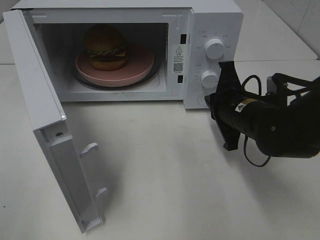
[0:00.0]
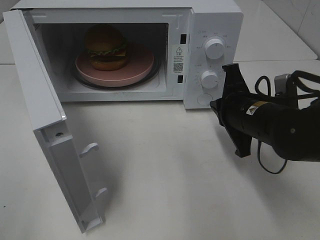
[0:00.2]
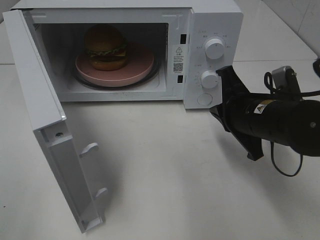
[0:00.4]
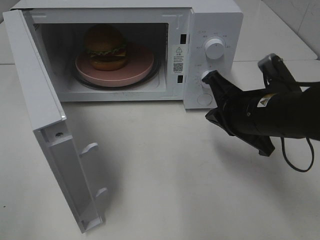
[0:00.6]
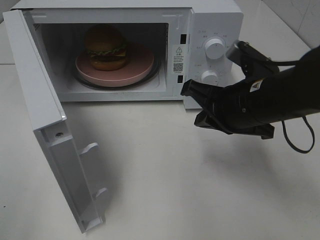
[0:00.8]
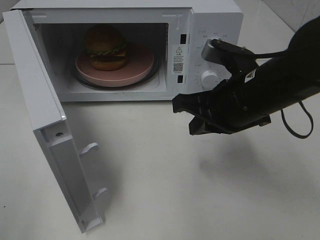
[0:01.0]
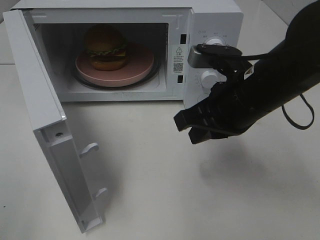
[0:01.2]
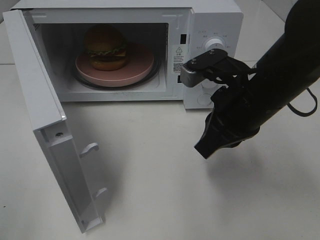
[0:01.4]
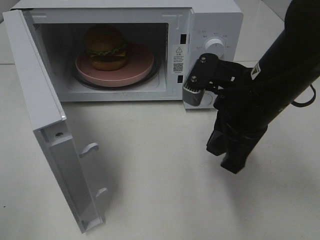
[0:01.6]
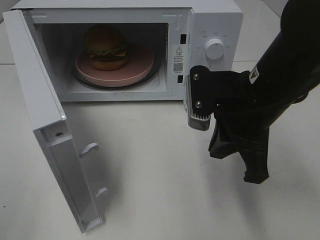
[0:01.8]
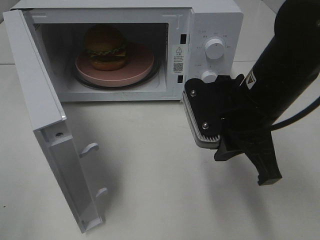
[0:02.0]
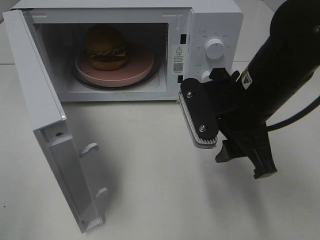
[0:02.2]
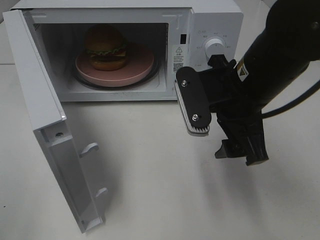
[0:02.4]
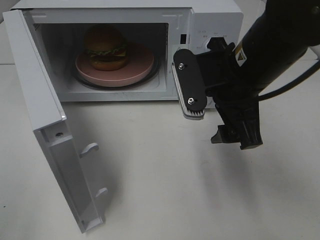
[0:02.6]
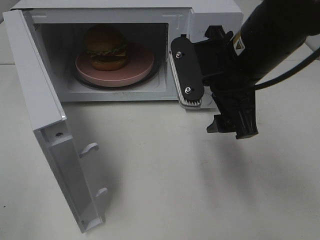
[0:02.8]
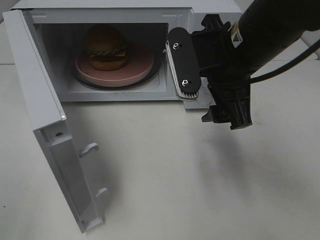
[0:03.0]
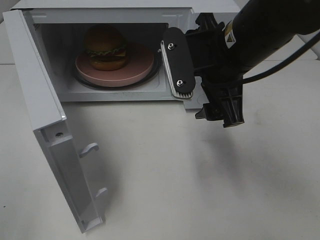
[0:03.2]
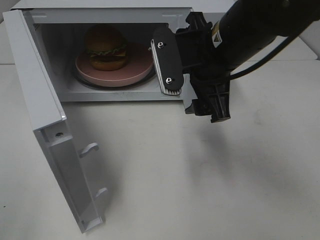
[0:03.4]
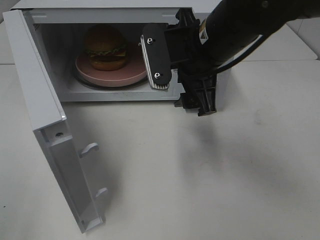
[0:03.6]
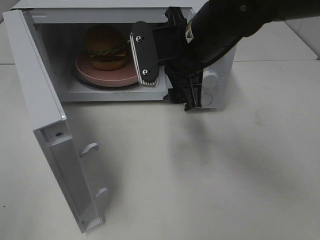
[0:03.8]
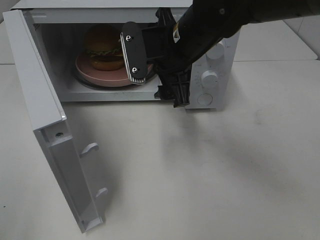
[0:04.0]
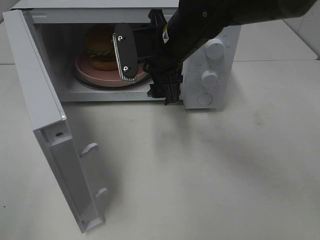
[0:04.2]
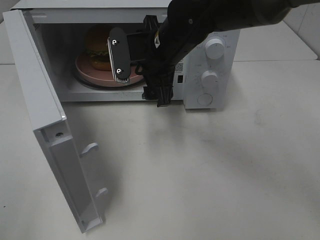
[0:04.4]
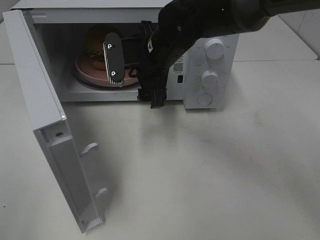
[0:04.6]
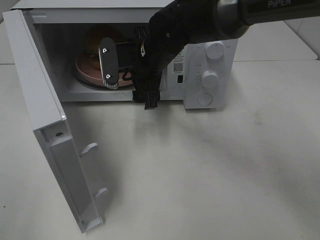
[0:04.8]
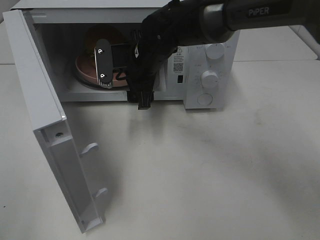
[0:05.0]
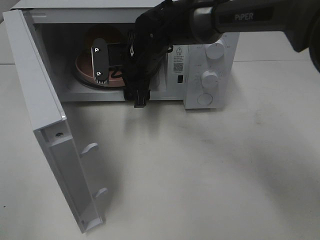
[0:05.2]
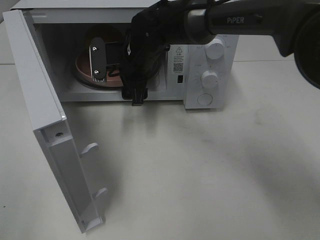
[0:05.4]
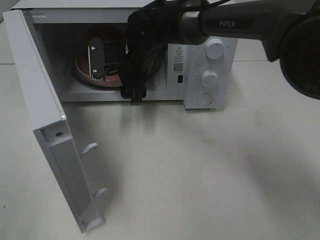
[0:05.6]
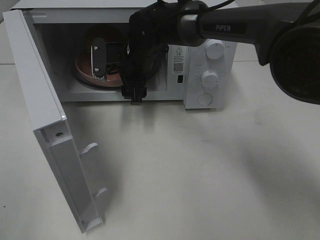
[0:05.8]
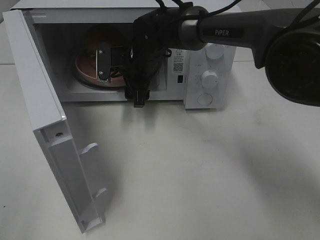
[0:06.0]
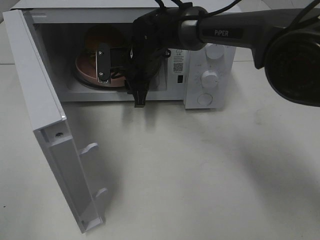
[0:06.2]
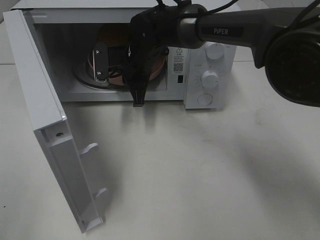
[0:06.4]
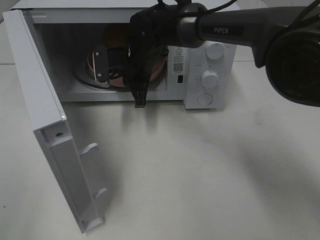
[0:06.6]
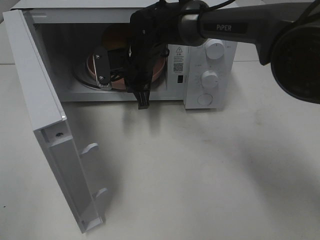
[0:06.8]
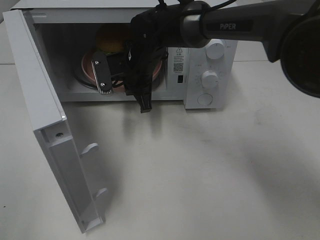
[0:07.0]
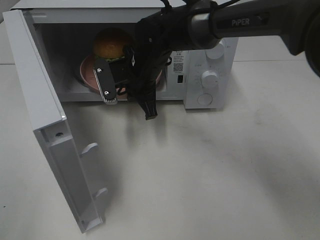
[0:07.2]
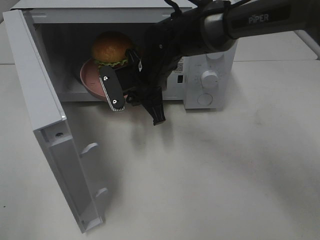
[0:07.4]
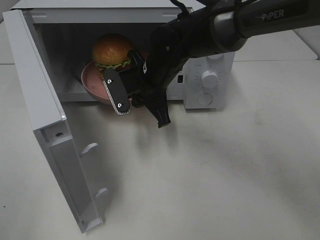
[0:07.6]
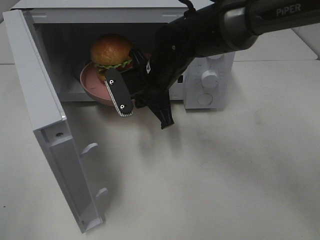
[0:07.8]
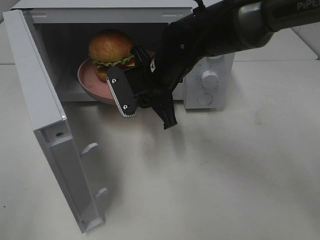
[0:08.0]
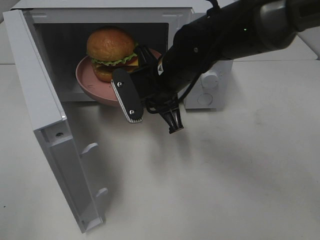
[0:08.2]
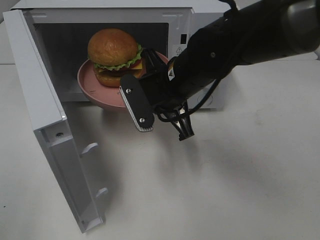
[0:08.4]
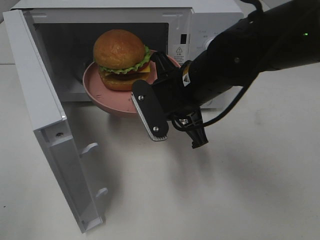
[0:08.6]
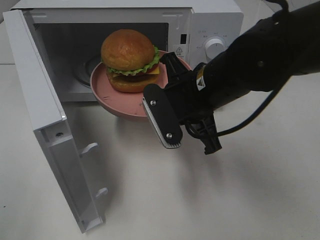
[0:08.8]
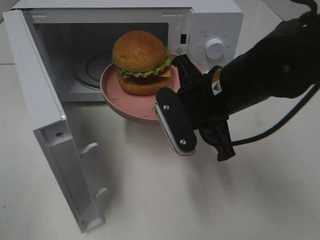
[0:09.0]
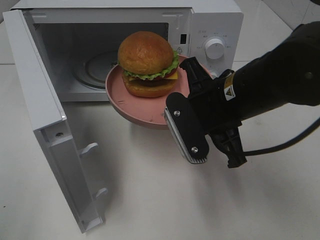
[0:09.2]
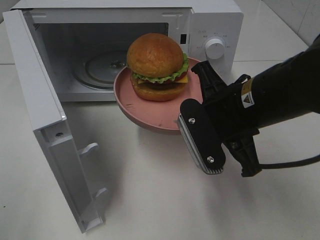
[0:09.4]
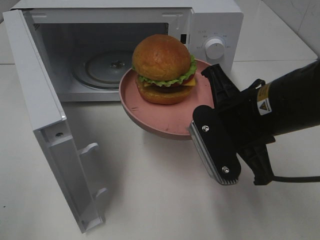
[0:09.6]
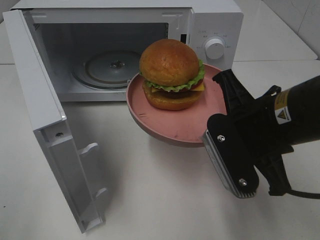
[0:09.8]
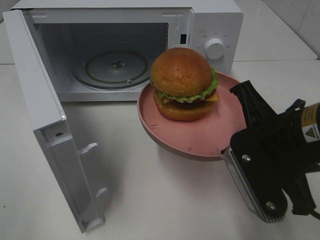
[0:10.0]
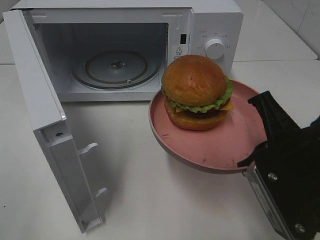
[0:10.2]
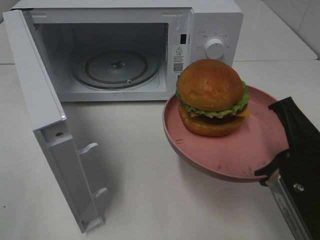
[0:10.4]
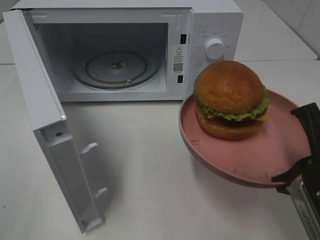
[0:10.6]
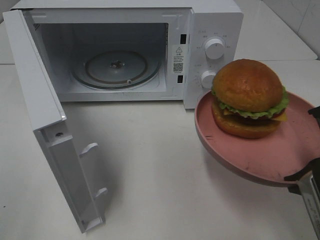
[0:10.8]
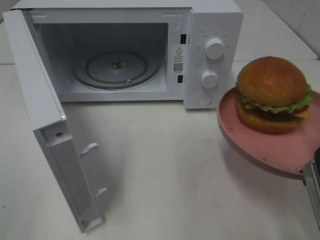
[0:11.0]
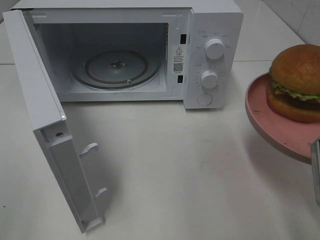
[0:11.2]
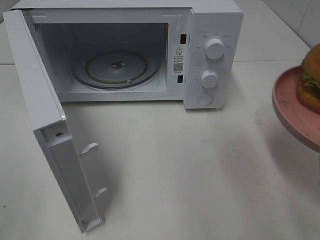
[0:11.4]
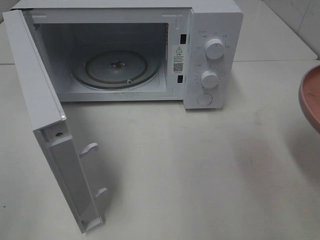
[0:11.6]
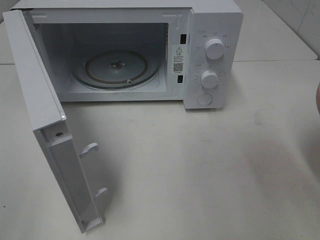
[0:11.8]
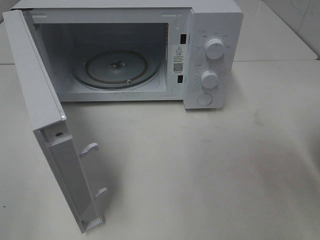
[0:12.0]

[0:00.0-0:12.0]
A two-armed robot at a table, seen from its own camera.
Task of the whole recording: Heat the burger.
Step, 0:00.0 to 0:06.4: Right hand: grab the plate with the hamburger.
0:00.0 to 0:01.6: The right gripper shifts roughly 10 cm upward.
0:01.6 to 0:03.0: The right gripper moves about 5 cm, and opens its fingers.
0:03.0 to 0:04.4: The right gripper goes roughly 15 cm forward, to the left and downward.
0:04.4 to 0:06.0: The right gripper shifts some 10 cm forward and downward.
0:06.0 to 0:07.6: The right gripper goes about 5 cm backward, and closes up.
0:07.6 to 0:09.0: The right gripper goes approximately 15 cm backward and to the right.
0:09.0 to 0:10.4: The right gripper heads backward and to the right, covering roughly 15 cm.
0:10.4 to 0:12.0: The right gripper heads to the right, covering some 5 cm.

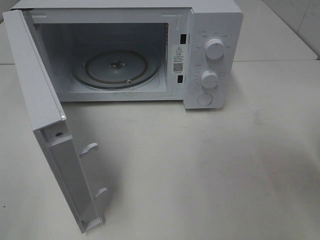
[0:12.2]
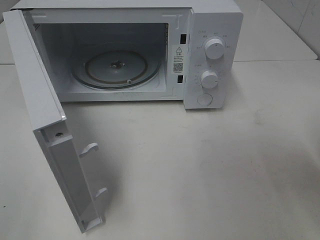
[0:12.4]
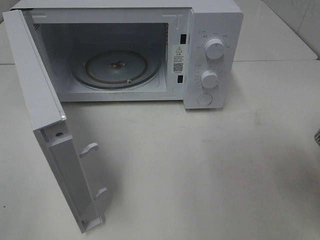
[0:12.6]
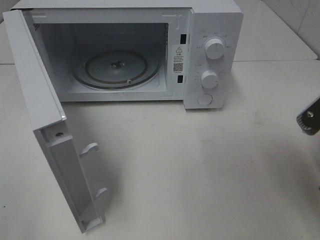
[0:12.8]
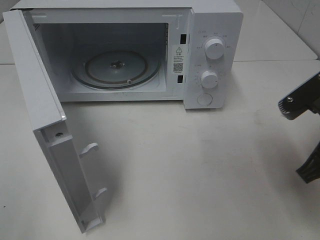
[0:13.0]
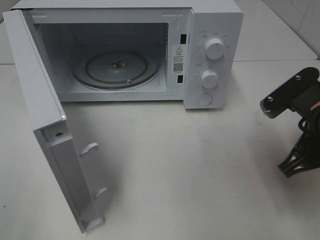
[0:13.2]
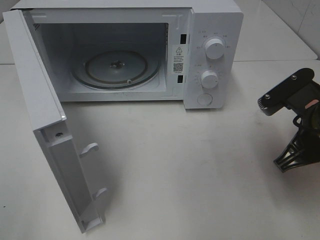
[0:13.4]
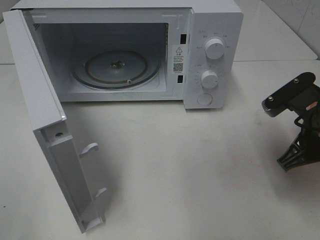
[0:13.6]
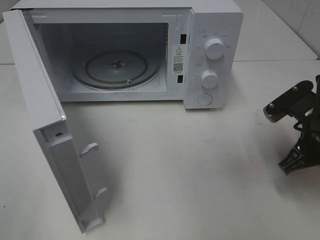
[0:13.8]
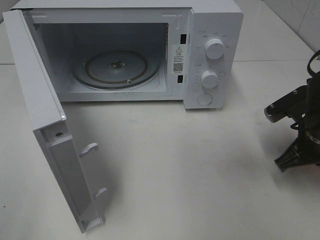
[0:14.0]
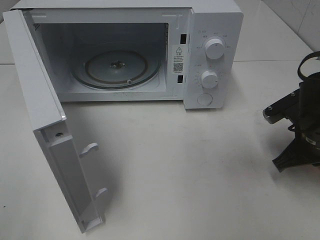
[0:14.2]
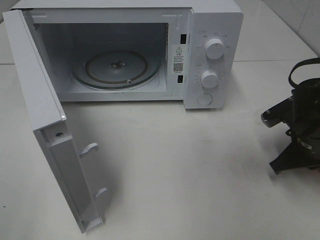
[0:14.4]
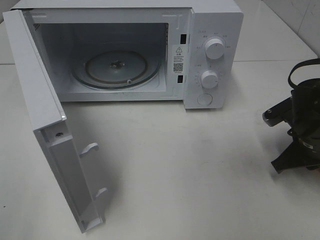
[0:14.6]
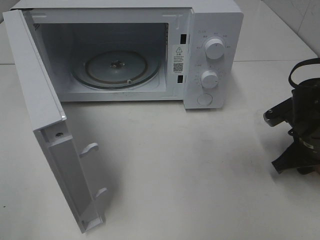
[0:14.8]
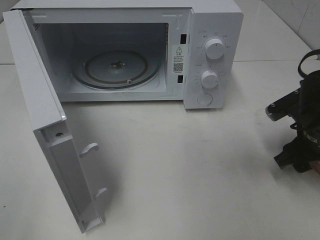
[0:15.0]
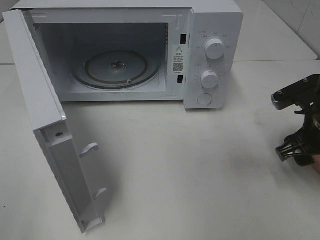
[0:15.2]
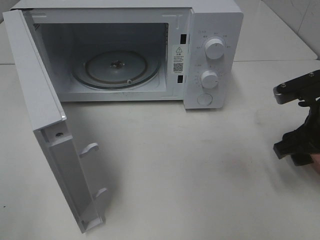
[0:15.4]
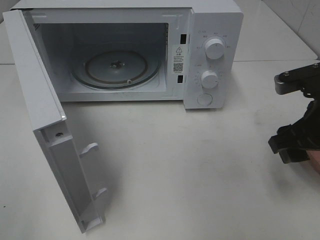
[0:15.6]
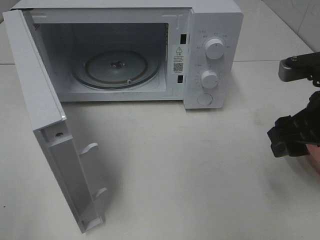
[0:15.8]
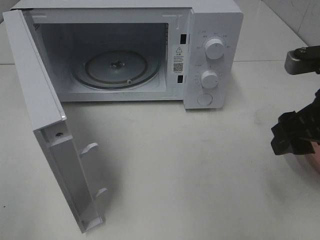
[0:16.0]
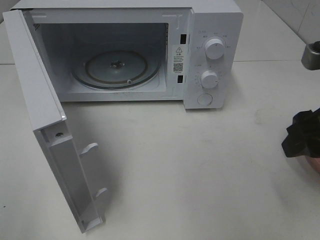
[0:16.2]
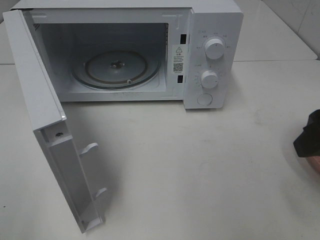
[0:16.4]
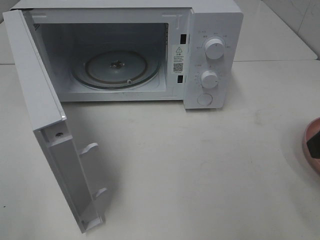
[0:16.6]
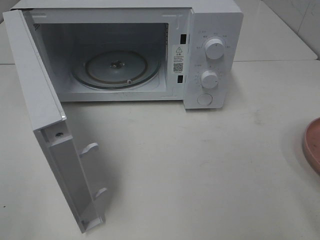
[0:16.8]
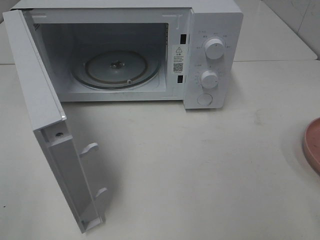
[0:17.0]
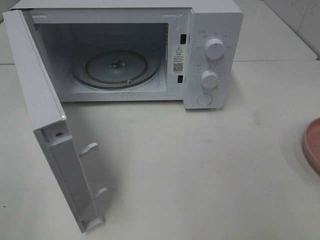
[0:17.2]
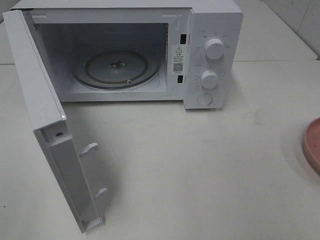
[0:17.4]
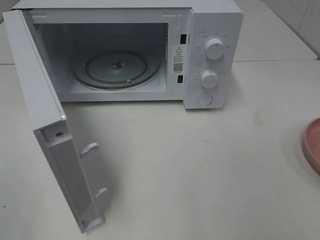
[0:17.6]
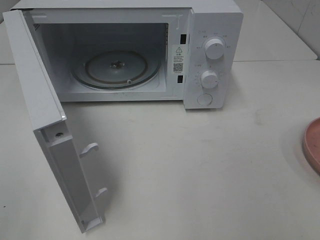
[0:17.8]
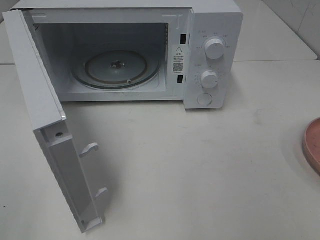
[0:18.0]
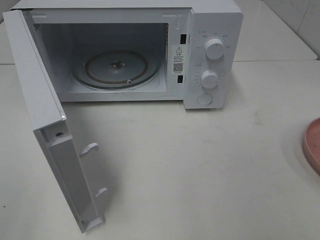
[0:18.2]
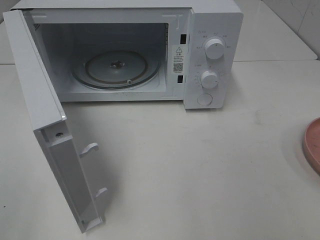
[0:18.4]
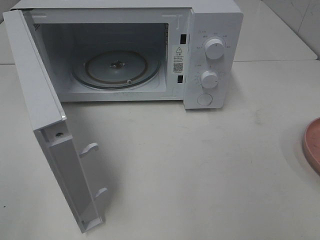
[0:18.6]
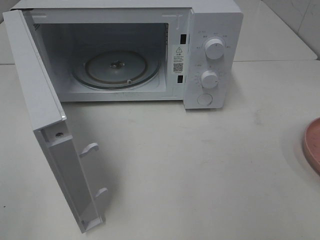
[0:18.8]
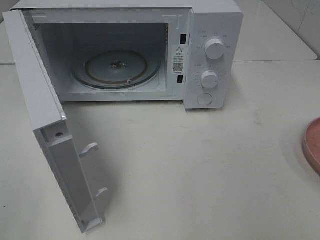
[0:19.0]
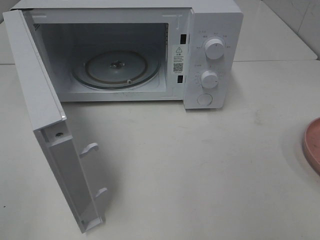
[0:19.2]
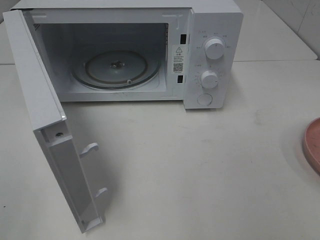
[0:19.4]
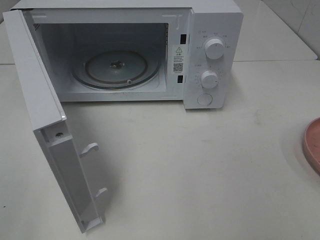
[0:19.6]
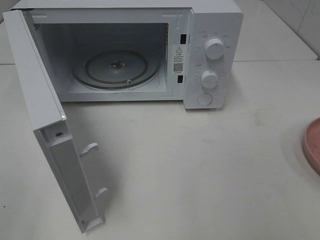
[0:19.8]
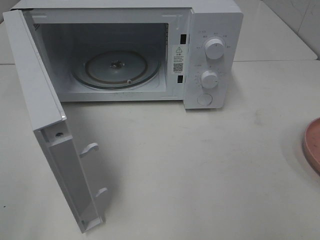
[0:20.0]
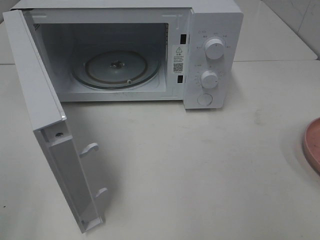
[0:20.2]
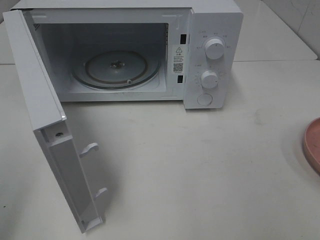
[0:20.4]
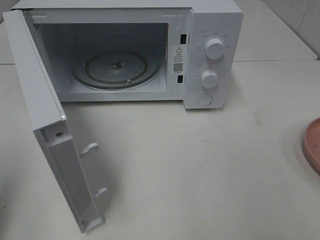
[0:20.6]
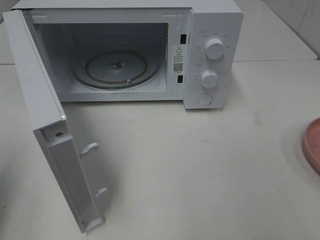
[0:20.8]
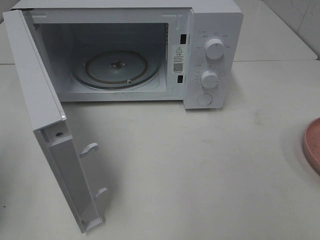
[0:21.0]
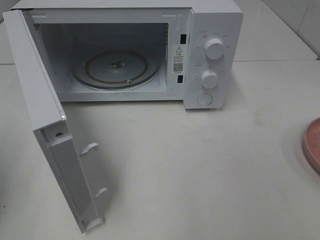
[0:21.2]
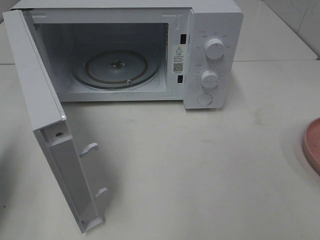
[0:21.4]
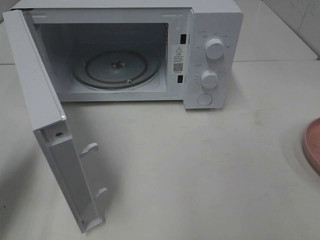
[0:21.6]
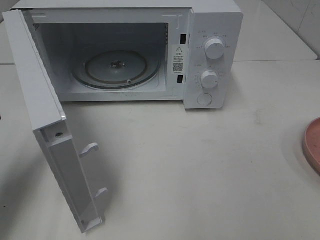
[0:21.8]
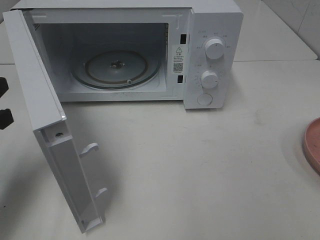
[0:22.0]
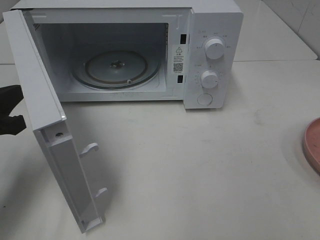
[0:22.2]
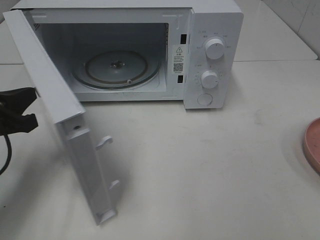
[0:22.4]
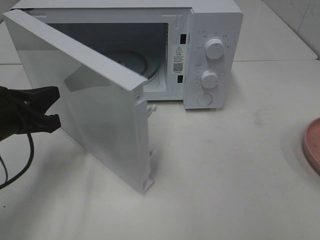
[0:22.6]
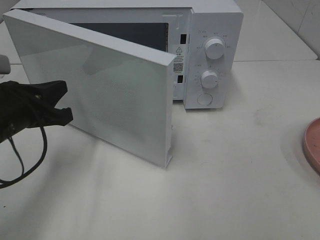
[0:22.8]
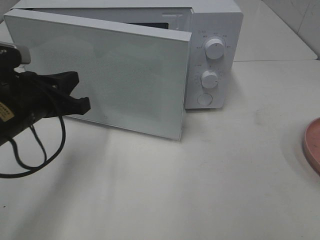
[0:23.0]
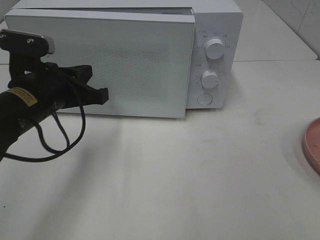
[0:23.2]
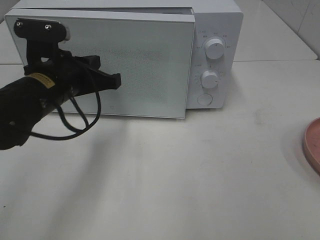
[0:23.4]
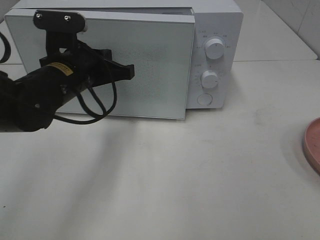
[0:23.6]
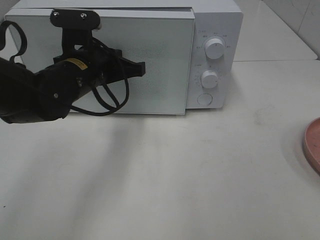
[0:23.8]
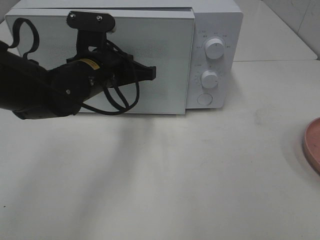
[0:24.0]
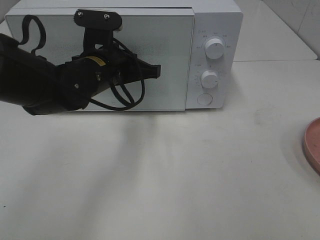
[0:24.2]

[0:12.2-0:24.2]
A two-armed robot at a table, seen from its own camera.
Task of the whole recording: Heat the burger.
Step, 0:12.2 to 0:14.8: Right hand: place the plate on the table.
0:12.2 to 0:13.8: The right gripper heads forward and downward, covering roughly 15 cm.
0:13.8 to 0:15.2: The right gripper opens.
0:15.2 to 0:16.6: The right gripper goes about 20 cm upward and backward.
0:16.6 to 0:18.2: The right gripper travels backward by approximately 15 cm.
0:18.2 to 0:19.8: Both grippers stay about where they are.
0:21.2 to 0:22.6: The left gripper heads to the right, forward and downward, covering about 15 cm.
0:22.6 to 0:24.2: The left gripper travels to the right and forward by roughly 20 cm.
